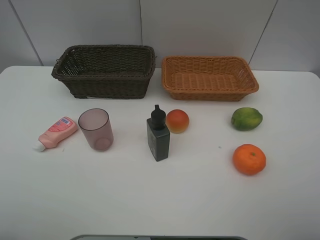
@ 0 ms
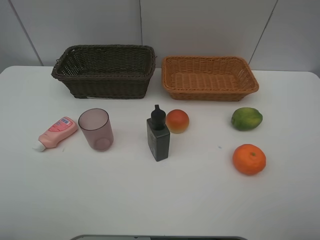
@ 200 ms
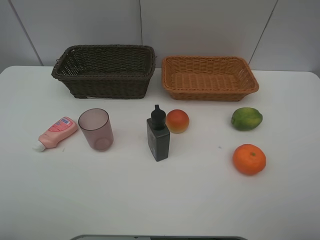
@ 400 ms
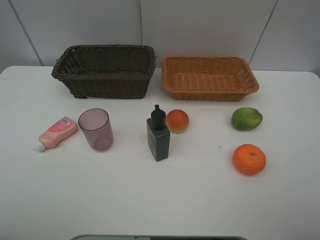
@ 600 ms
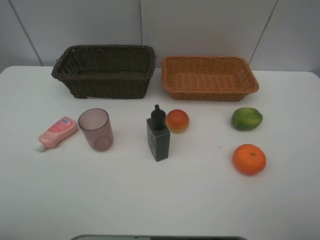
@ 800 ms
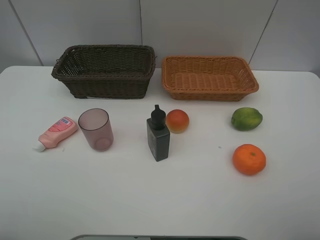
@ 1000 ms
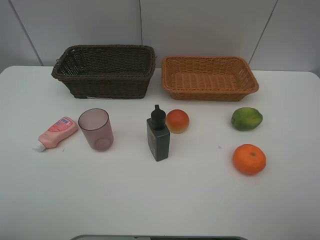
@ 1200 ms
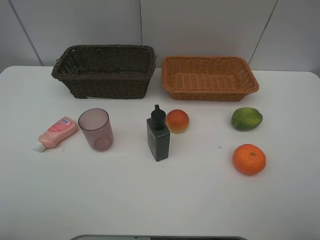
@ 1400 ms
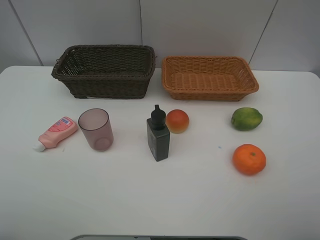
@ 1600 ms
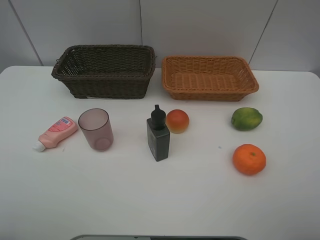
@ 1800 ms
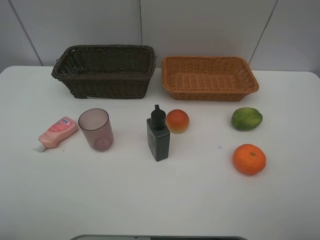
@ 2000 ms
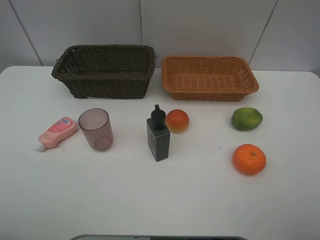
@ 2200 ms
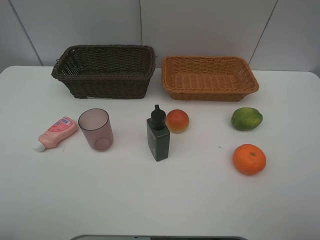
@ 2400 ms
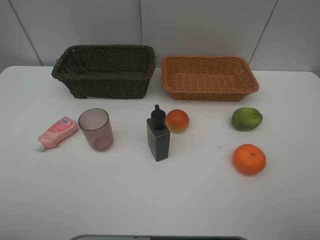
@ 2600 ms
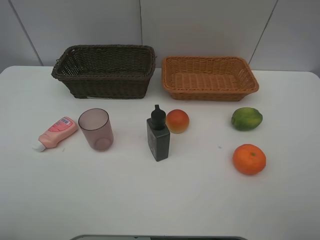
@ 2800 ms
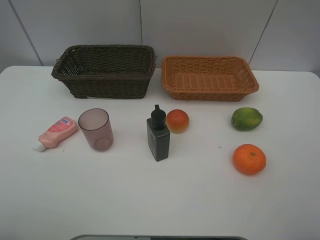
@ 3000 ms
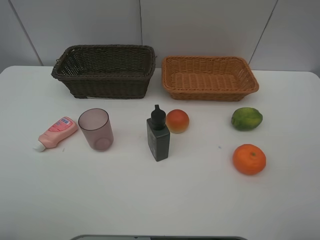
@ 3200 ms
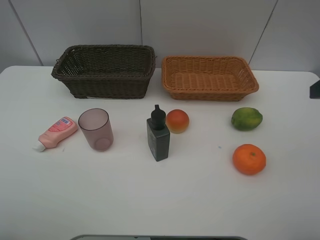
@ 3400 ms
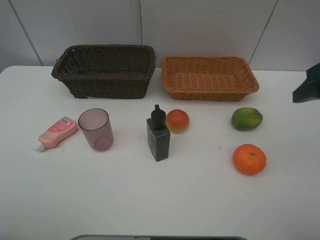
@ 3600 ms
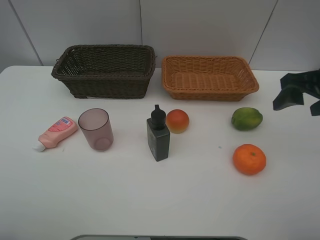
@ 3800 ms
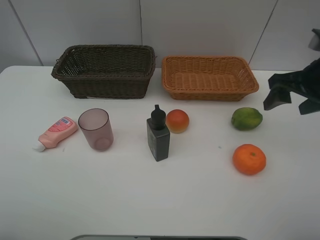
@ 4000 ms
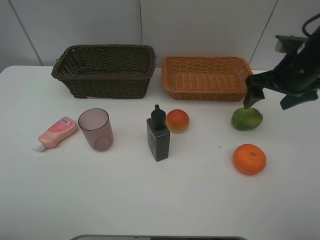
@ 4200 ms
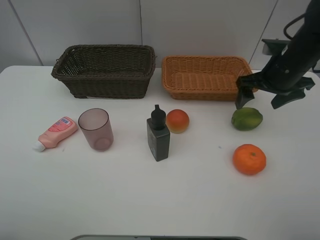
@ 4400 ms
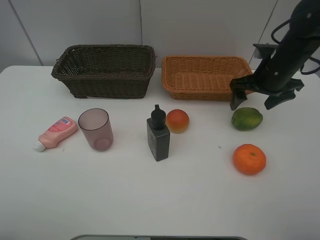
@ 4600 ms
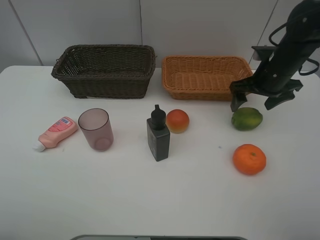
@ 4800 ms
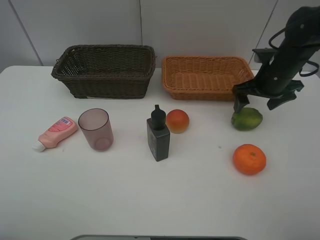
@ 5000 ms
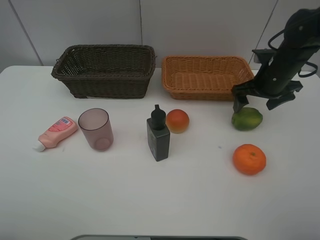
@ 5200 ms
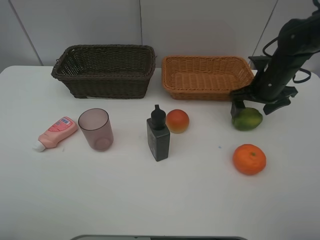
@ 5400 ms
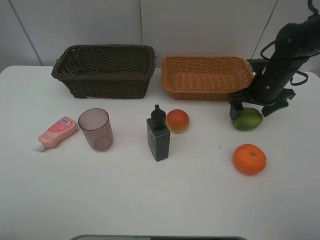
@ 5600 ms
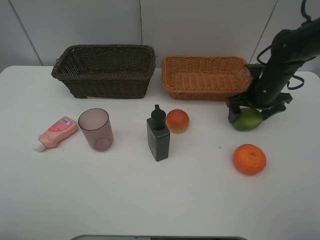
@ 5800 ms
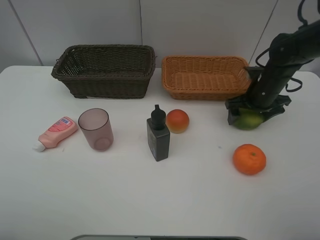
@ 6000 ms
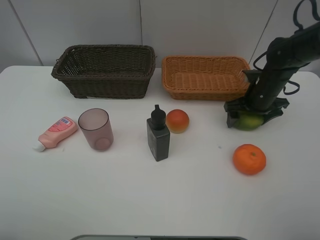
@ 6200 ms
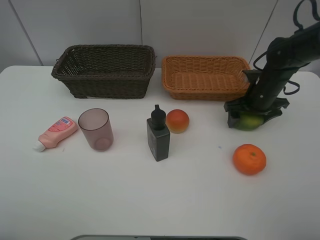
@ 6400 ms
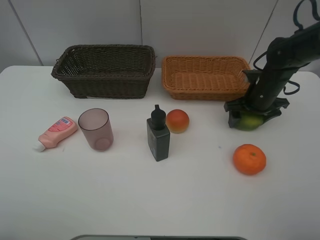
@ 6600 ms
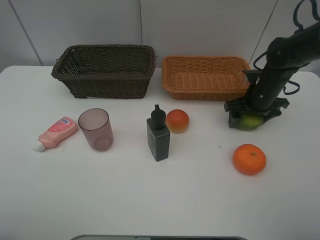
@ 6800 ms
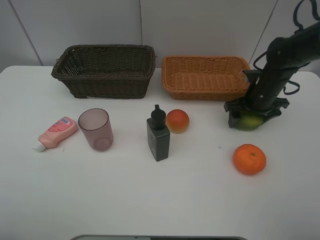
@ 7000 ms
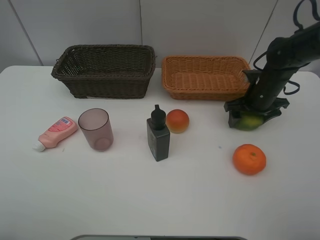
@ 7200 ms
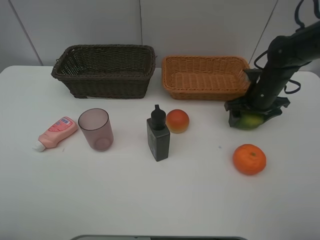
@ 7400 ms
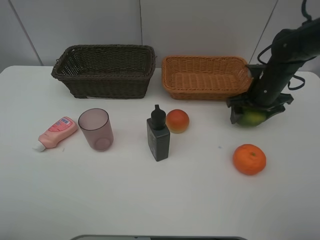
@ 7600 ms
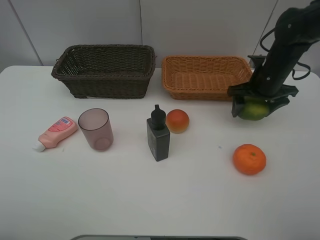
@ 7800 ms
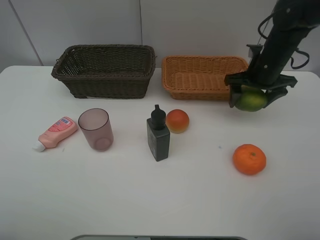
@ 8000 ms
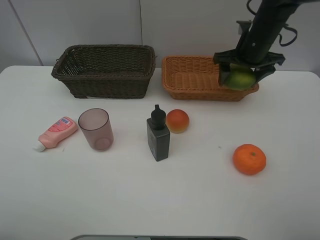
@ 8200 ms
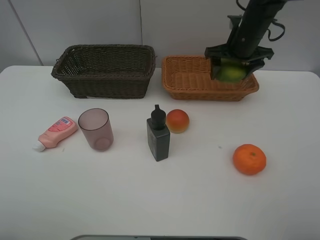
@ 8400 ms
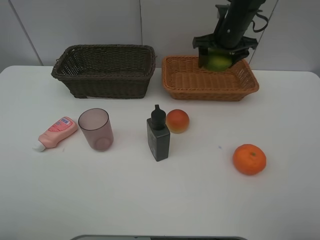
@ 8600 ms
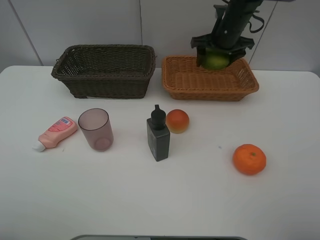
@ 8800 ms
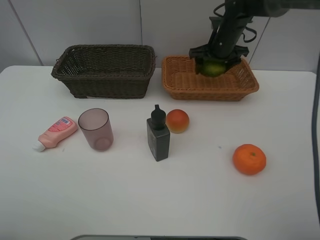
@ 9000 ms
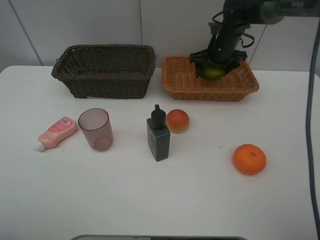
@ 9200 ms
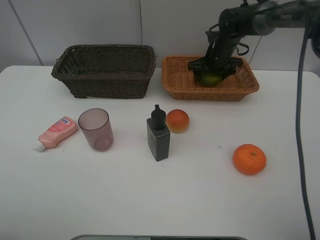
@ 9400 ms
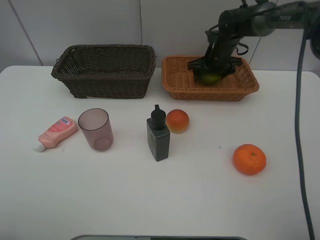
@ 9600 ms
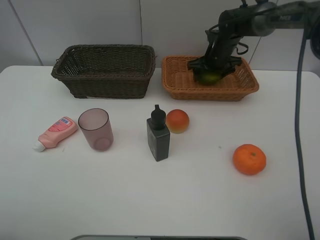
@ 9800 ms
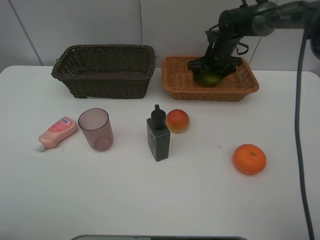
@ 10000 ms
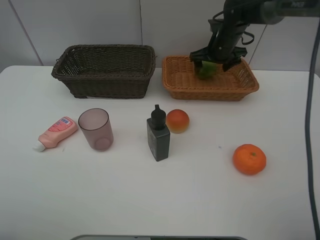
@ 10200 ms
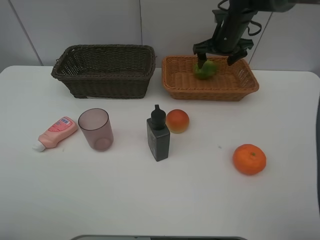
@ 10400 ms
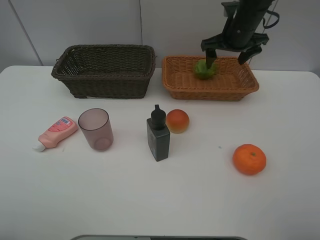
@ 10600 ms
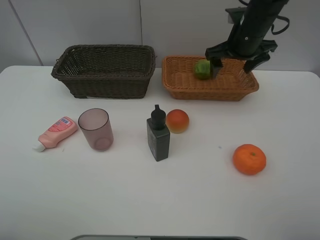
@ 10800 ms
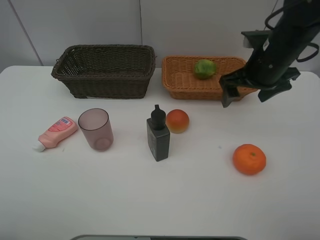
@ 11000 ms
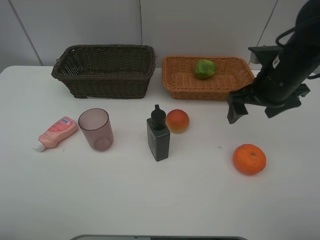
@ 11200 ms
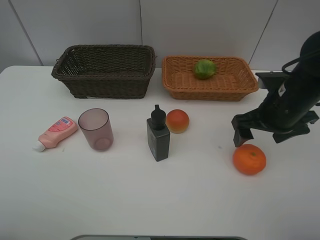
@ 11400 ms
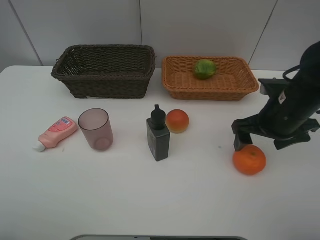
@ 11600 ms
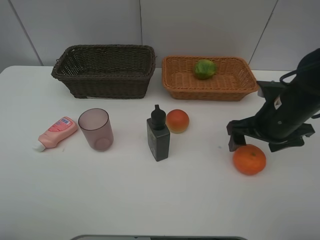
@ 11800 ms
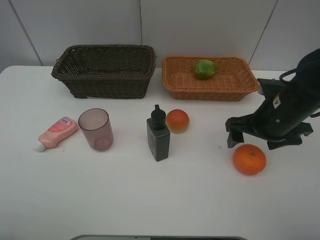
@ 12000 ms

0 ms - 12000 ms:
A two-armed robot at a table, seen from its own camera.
Task of the whole recording: place multiple objects separately in different baskets.
0 ms - 1600 ms: Both grippers stay put.
3000 ms - 4400 ms: The right gripper shifts about 25 cm forward and downward.
4400 ms - 6000 ms: The right gripper travels downward by about 10 cm.
6000 ms - 7600 ms: There are only small adjustments of the grippers.
7600 ms - 9000 ms: The right gripper is displaced forward and to the left by about 15 cm.
9000 ms - 10400 ms: The grippers make only small movements.
10400 ms - 12000 ms: The right gripper moves backward, some 25 cm.

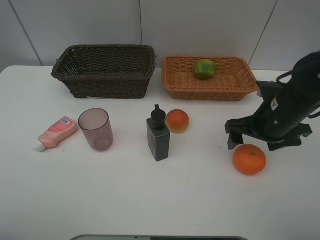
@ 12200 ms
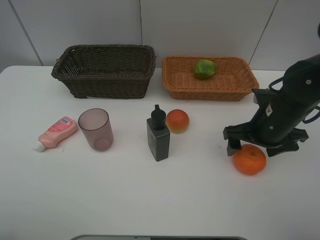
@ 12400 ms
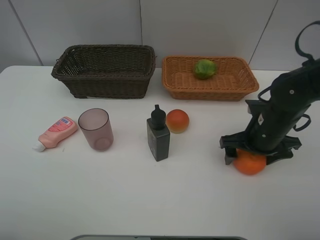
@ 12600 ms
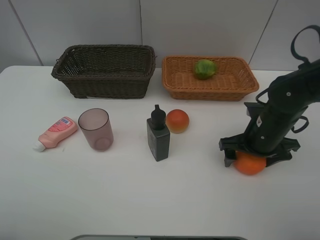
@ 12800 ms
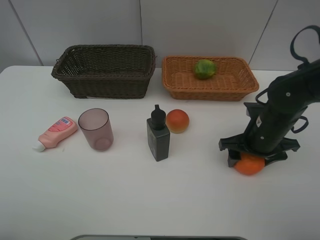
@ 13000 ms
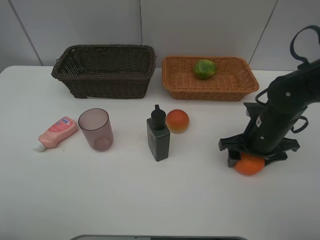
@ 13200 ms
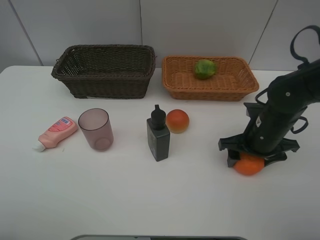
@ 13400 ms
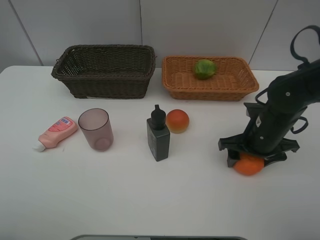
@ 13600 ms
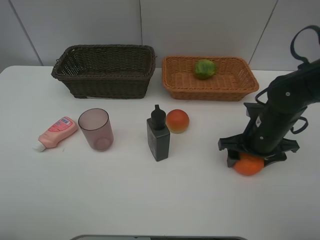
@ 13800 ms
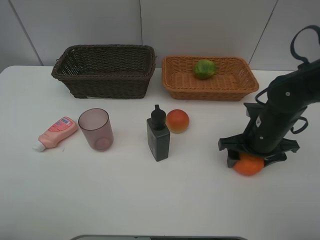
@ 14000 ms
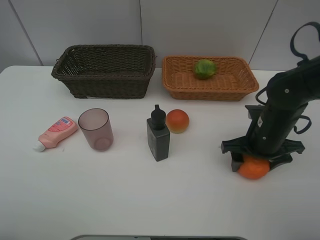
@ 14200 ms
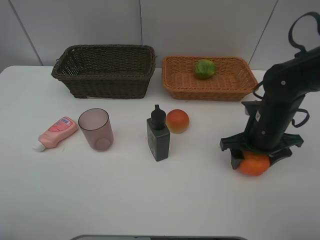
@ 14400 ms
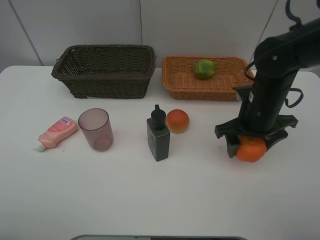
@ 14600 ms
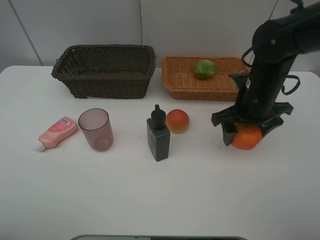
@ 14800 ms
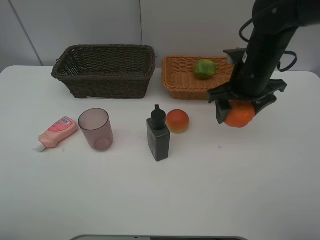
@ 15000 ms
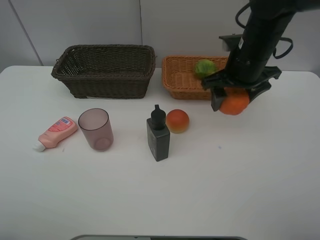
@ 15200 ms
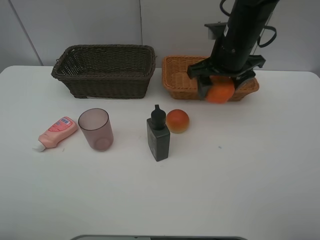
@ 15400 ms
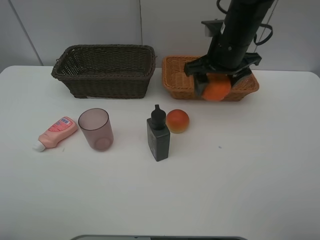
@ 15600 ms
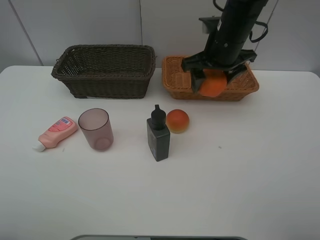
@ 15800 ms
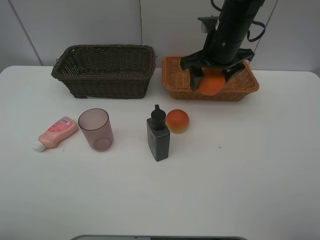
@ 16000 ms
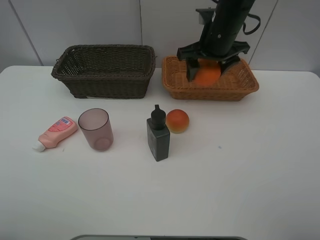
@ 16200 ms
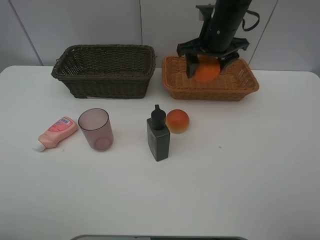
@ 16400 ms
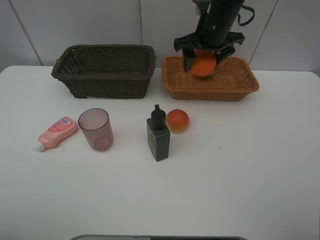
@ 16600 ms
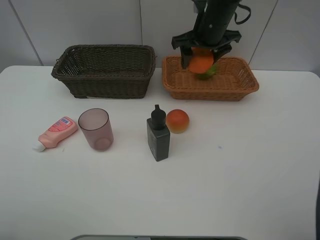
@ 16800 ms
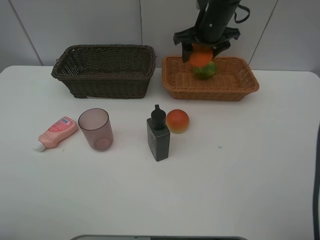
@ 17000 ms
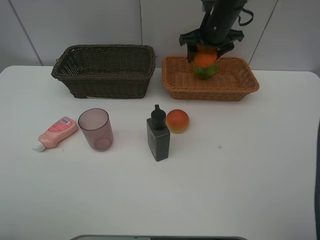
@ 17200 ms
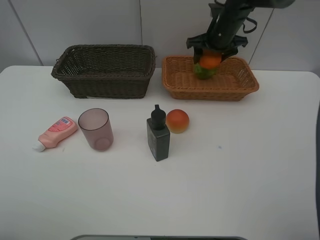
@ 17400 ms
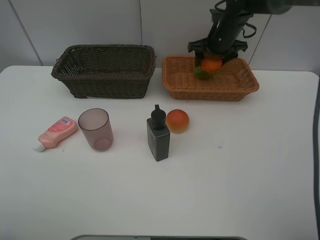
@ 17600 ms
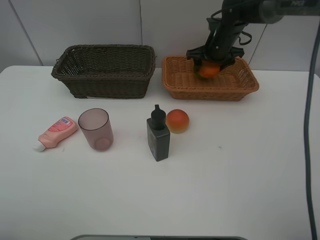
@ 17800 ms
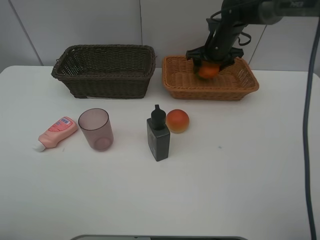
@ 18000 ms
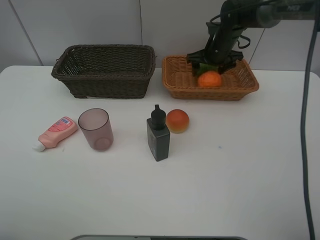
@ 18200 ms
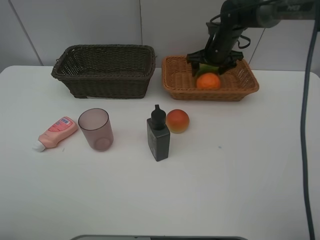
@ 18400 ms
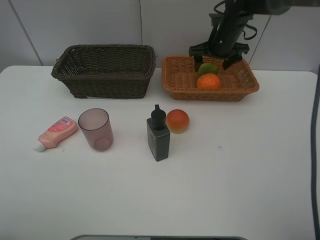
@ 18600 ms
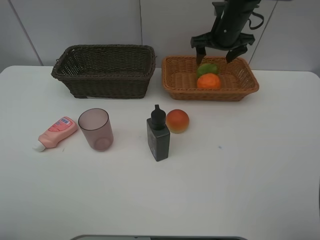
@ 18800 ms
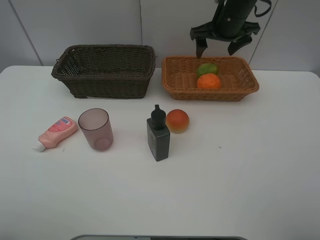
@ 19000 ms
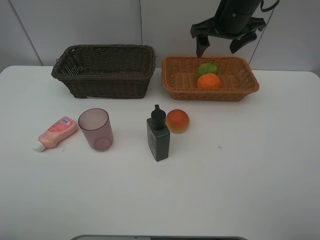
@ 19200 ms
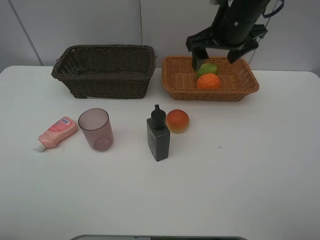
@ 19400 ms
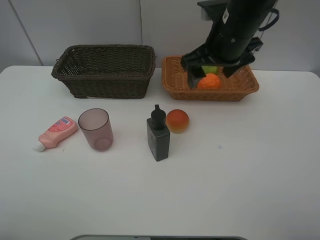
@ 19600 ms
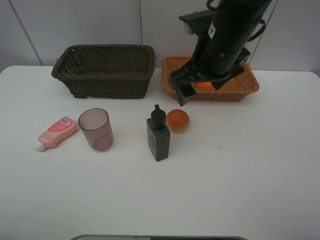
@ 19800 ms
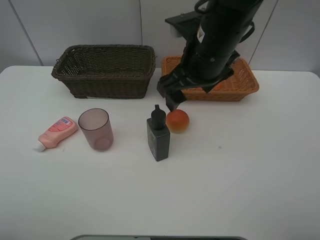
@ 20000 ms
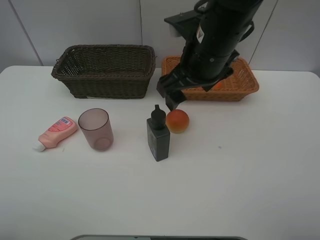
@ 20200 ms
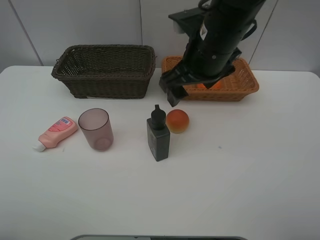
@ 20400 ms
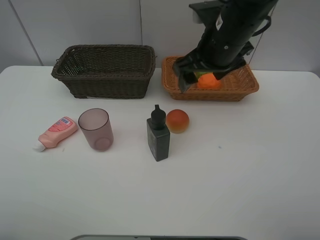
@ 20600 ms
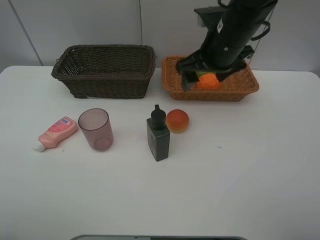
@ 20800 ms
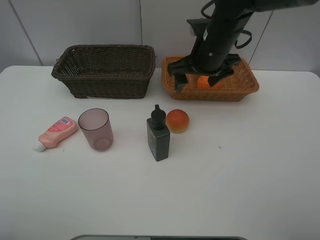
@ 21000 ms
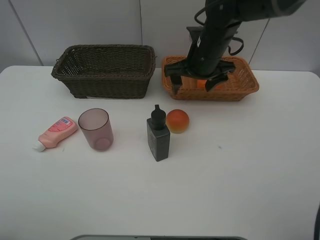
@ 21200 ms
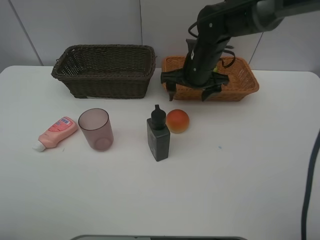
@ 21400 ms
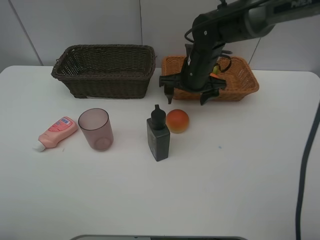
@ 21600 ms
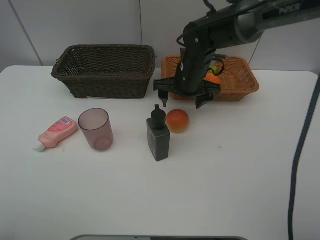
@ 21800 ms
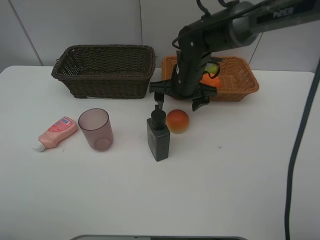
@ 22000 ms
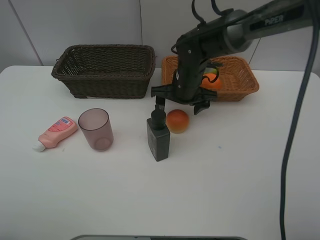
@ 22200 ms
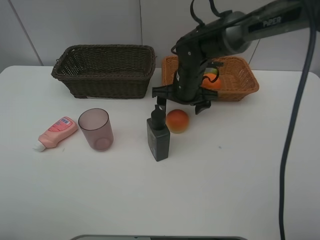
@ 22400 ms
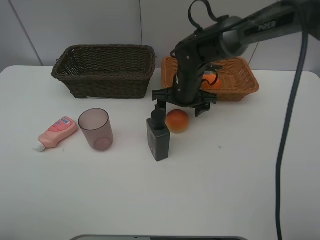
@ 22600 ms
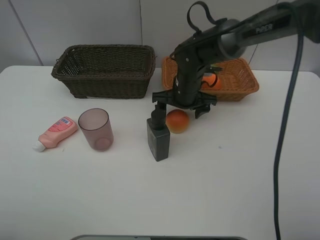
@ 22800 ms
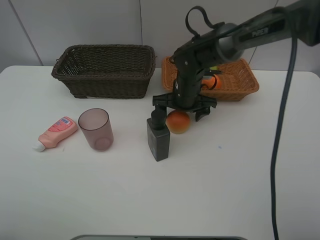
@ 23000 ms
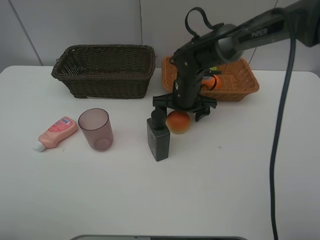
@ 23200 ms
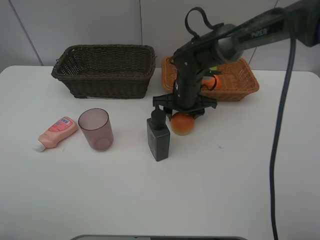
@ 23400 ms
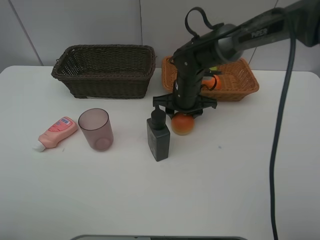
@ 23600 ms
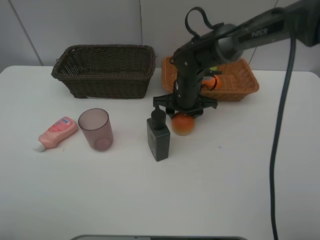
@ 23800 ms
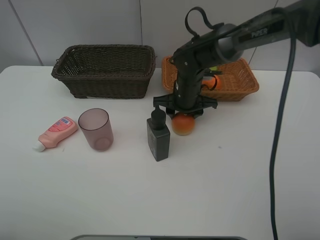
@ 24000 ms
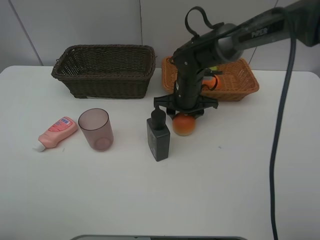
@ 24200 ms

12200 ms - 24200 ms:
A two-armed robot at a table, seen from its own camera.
Task of the whole recording: place multiple objects separately in different baskets.
12200 ms - 13800 ms: The right gripper closes.
13800 ms - 15200 ms: The right gripper shifts some 15 cm upward, forward and to the left.
15200 ms - 16600 ms: The right gripper heads forward, covering some 10 cm.
16600 ms - 18200 ms: The right gripper shifts about 10 cm downward and forward.
18200 ms - 19800 ms: The right gripper goes approximately 25 cm backward and upward.
19800 ms - 21200 ms: The right gripper goes some 10 cm forward and downward.
21200 ms - 22600 ms: The right gripper shifts approximately 10 cm downward.
22600 ms - 24200 ms: The right gripper closes.
